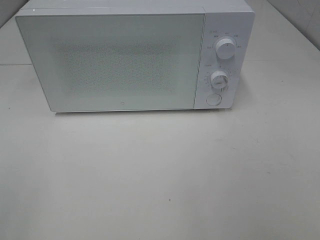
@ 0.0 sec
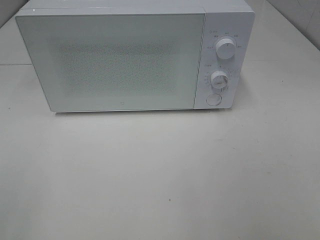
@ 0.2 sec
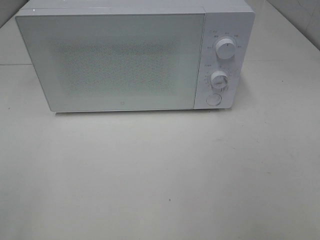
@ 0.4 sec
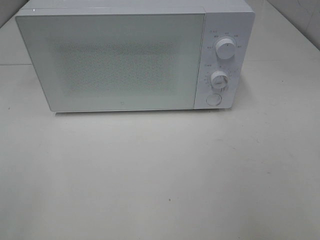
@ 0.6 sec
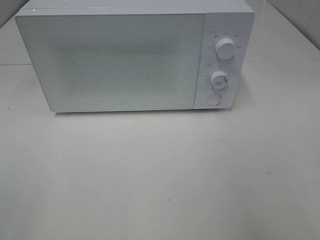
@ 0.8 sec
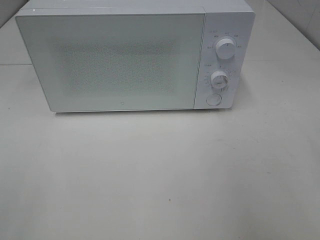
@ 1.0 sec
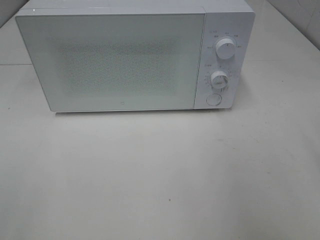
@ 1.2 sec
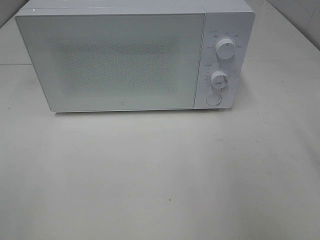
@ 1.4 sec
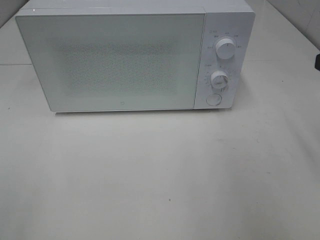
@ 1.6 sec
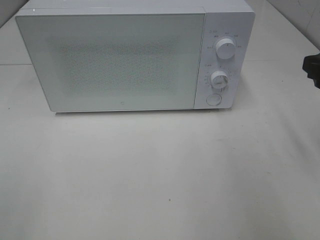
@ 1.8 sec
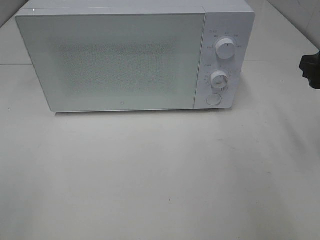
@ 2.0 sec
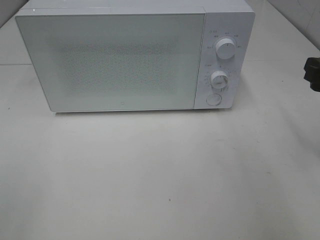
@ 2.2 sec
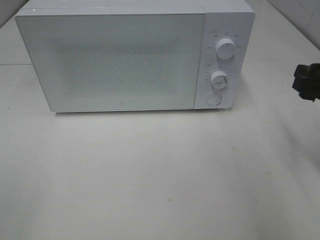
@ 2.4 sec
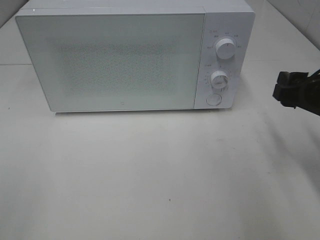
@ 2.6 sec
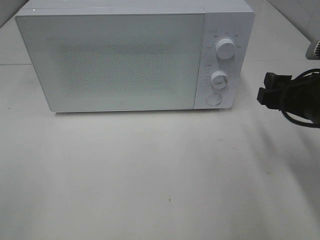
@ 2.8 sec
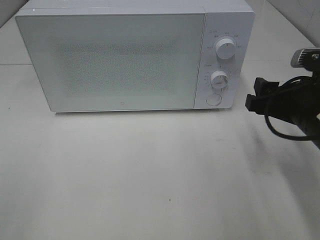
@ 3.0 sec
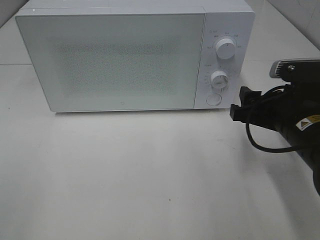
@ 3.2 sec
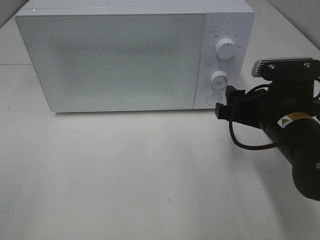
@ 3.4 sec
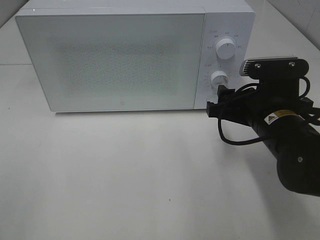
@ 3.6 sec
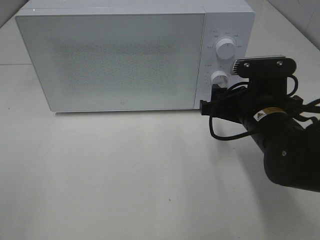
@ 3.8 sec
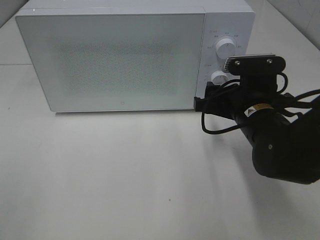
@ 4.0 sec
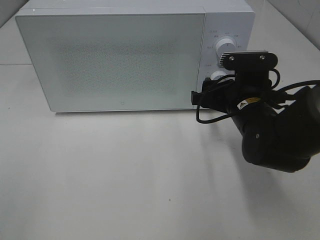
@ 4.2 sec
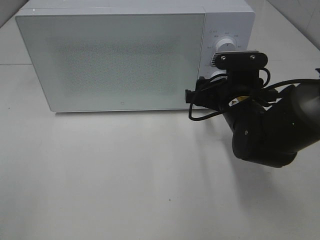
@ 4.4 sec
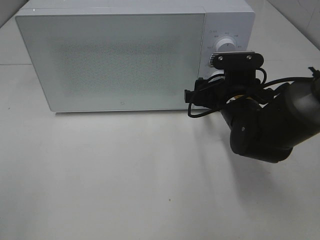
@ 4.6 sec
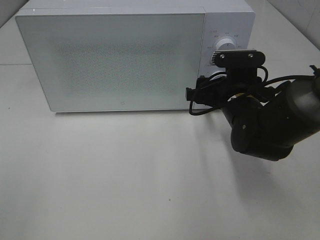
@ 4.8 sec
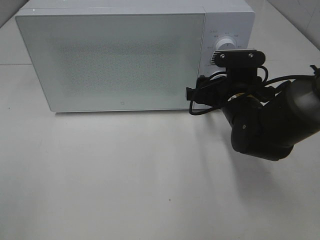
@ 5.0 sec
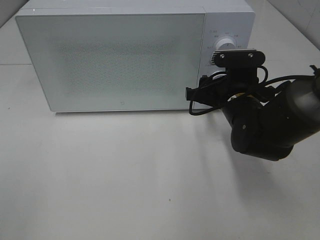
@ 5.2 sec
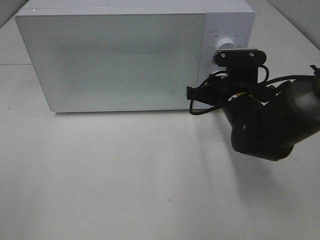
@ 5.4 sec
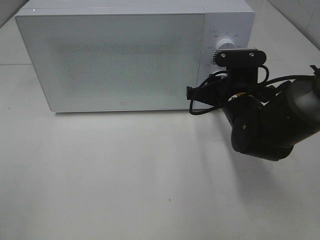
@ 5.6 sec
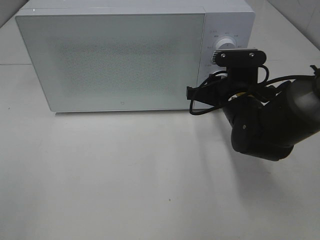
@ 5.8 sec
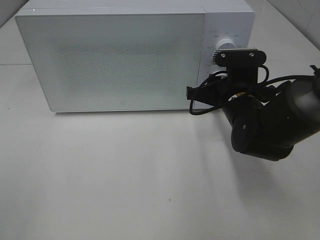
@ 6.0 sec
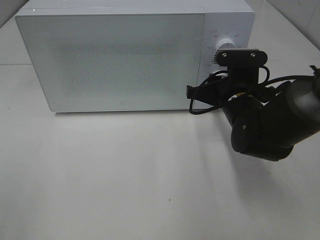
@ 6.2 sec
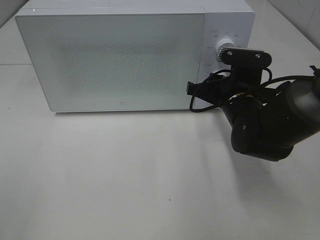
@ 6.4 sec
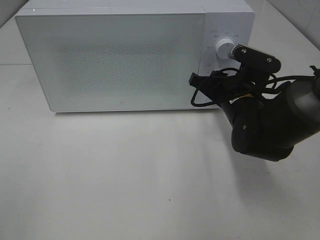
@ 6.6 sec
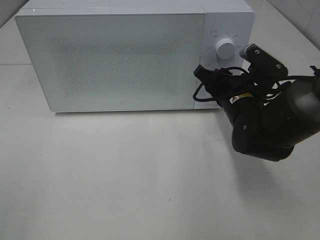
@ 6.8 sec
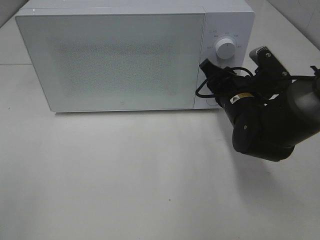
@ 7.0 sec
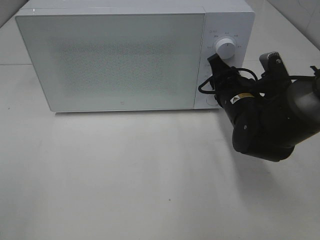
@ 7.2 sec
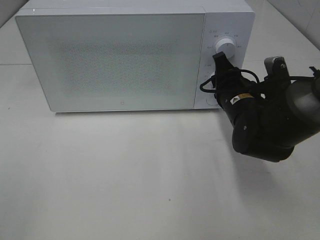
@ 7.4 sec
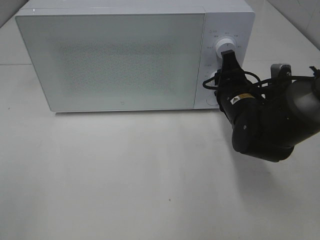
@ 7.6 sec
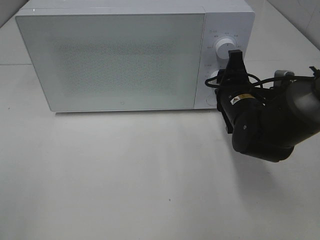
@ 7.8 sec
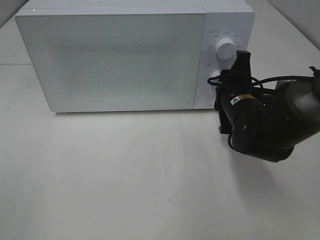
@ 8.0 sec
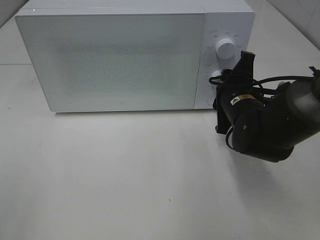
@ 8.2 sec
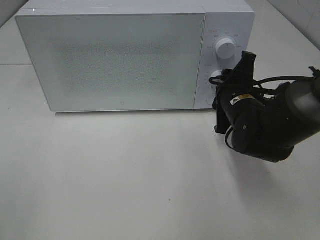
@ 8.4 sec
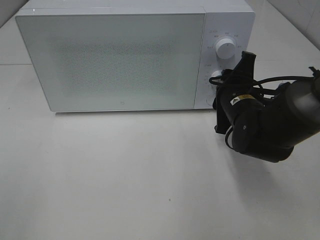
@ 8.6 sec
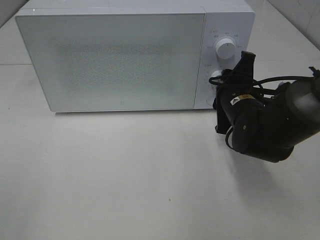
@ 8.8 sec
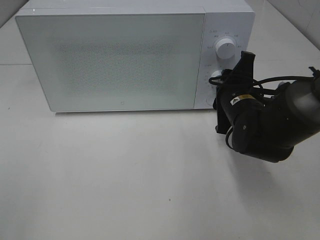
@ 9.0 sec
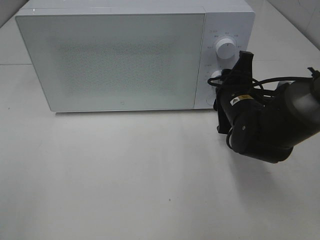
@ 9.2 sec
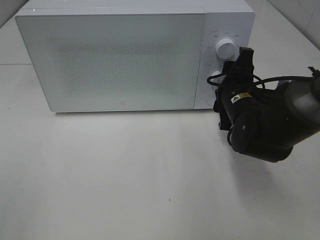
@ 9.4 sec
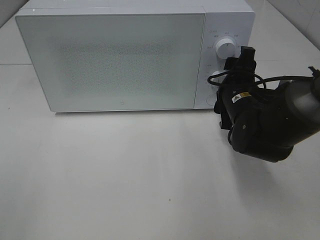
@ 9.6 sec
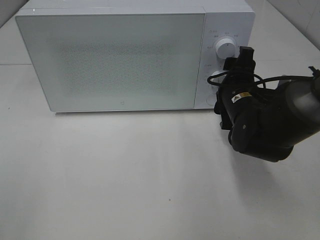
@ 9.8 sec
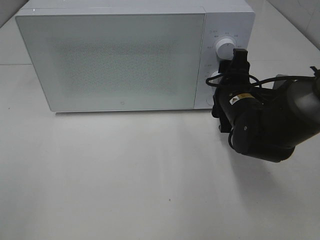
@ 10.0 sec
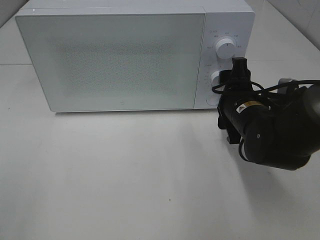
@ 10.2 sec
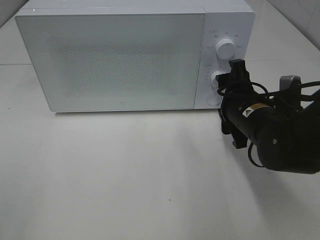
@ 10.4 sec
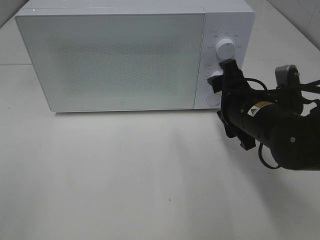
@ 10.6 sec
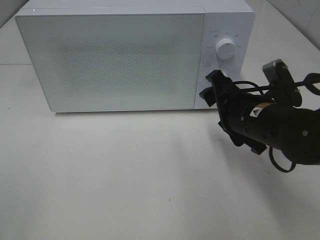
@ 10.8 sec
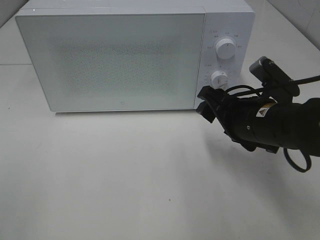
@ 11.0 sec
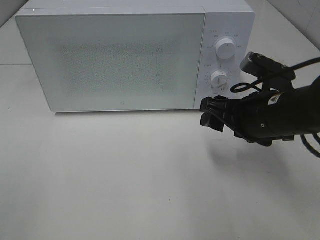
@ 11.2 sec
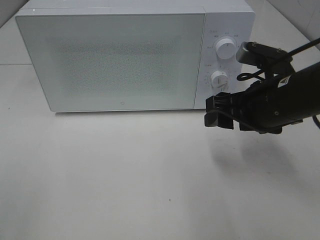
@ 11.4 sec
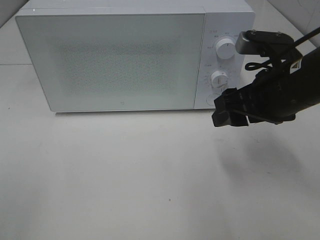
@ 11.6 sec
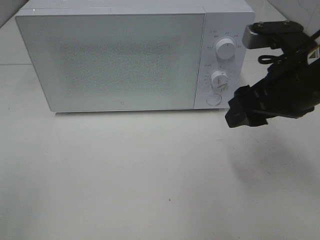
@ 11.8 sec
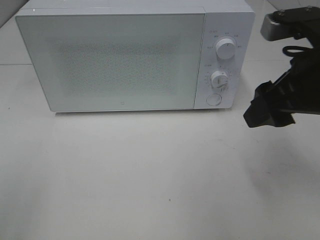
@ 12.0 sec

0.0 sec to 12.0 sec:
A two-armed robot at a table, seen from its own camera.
Task of the whole recording: Heat Sandwich.
Step, 0.0 sec to 10.0 sec: Right hand: twist timer button.
1.6 sec to 3.0 sec: The right gripper shifts some 10 cm downward and to the left.
3.0 sec to 4.4 sec: The right gripper shifts some 10 cm forward and to the left.
4.4 sec to 6.0 sec: The right gripper closes its fingers.
10.4 sec to 12.0 sec: The right gripper heads upward and backward, covering roughly 15 cm.

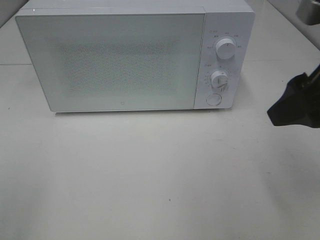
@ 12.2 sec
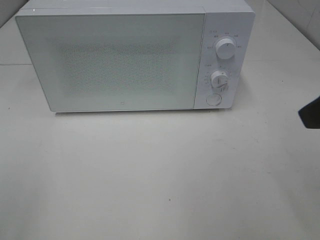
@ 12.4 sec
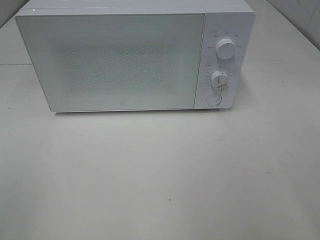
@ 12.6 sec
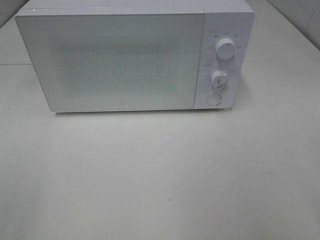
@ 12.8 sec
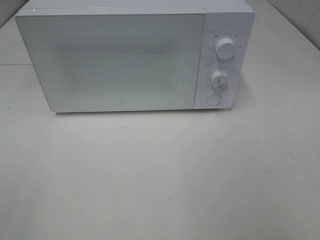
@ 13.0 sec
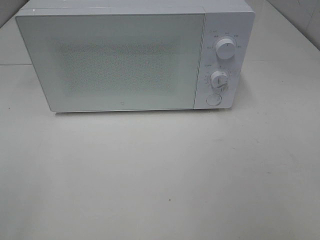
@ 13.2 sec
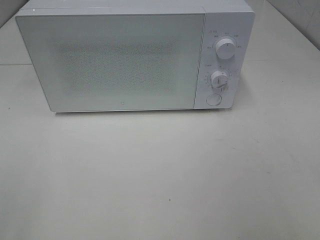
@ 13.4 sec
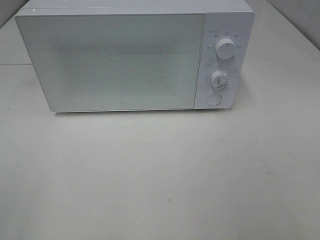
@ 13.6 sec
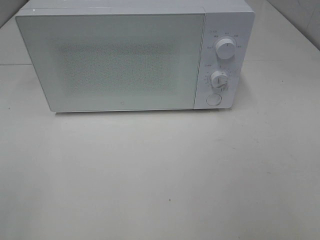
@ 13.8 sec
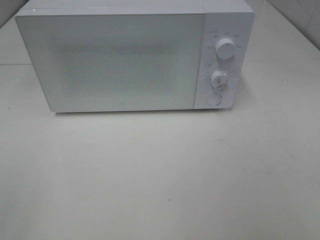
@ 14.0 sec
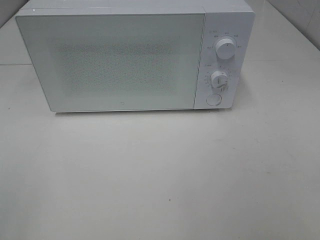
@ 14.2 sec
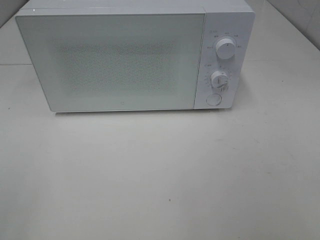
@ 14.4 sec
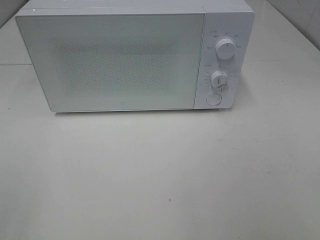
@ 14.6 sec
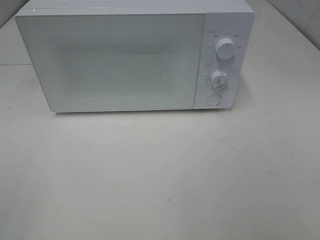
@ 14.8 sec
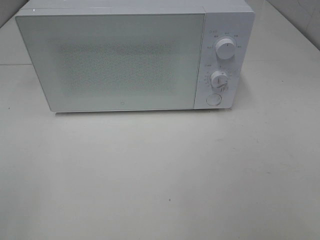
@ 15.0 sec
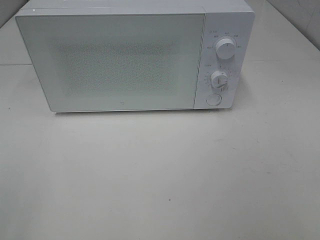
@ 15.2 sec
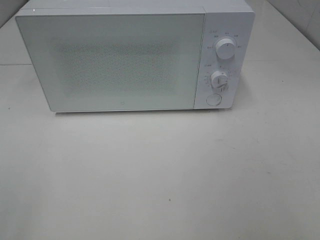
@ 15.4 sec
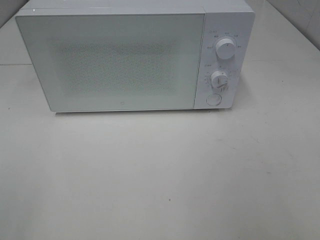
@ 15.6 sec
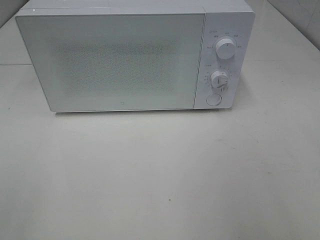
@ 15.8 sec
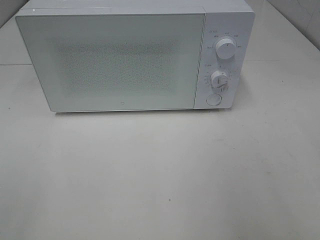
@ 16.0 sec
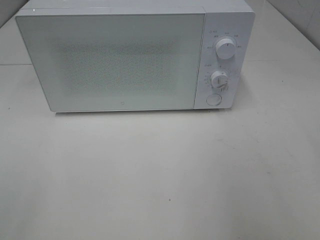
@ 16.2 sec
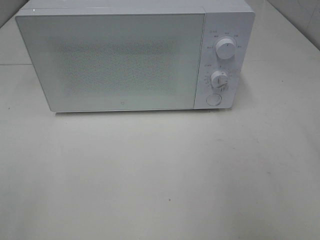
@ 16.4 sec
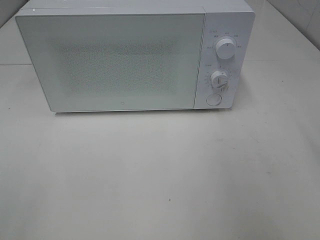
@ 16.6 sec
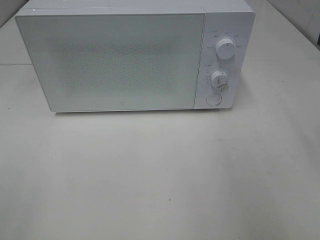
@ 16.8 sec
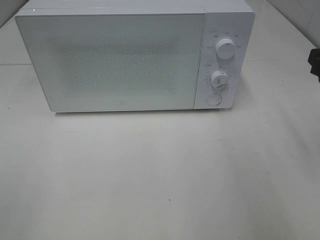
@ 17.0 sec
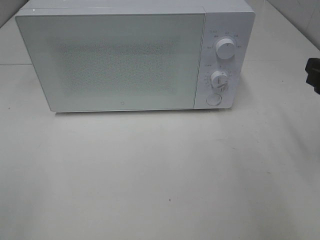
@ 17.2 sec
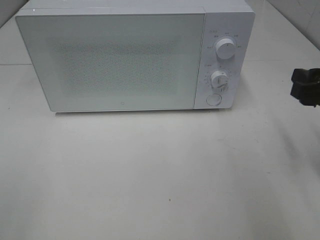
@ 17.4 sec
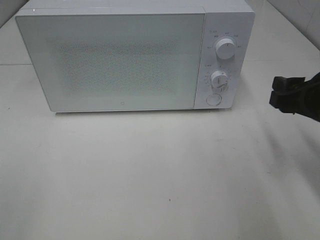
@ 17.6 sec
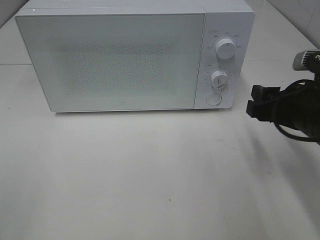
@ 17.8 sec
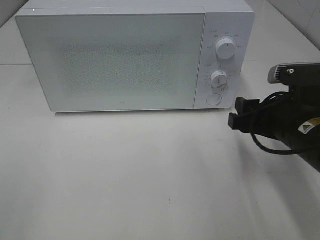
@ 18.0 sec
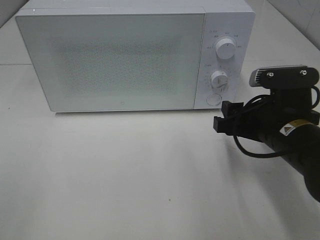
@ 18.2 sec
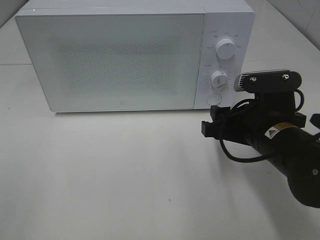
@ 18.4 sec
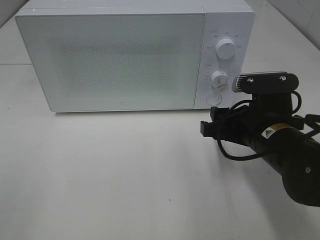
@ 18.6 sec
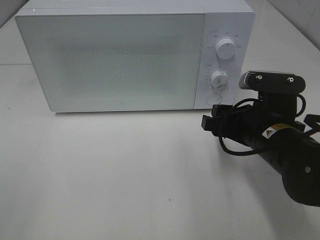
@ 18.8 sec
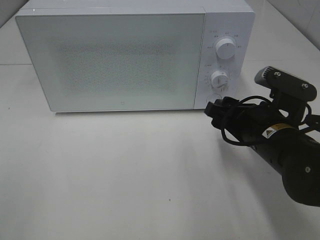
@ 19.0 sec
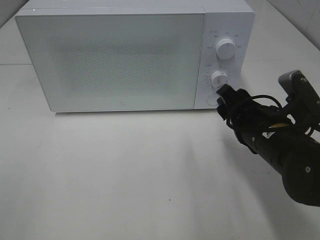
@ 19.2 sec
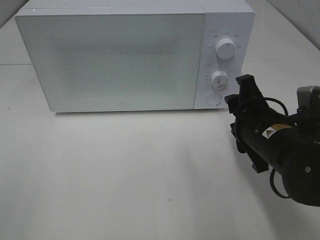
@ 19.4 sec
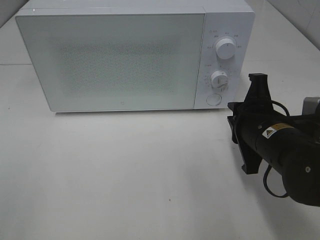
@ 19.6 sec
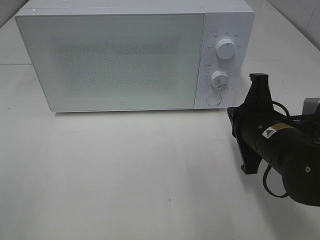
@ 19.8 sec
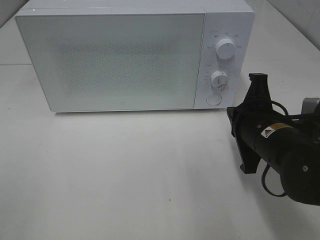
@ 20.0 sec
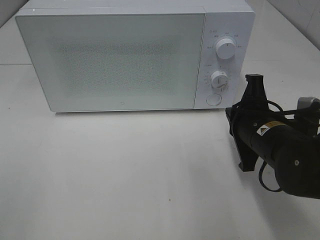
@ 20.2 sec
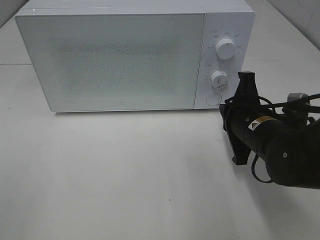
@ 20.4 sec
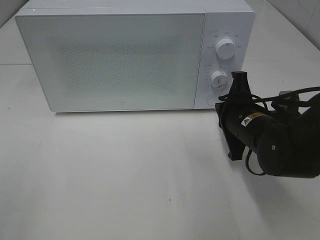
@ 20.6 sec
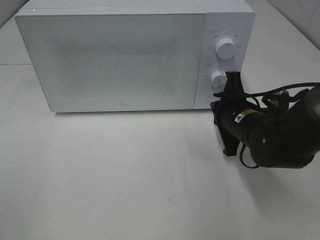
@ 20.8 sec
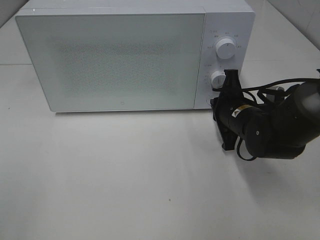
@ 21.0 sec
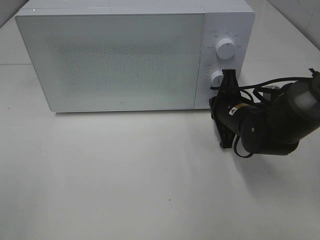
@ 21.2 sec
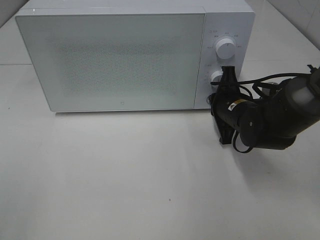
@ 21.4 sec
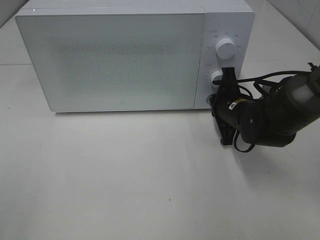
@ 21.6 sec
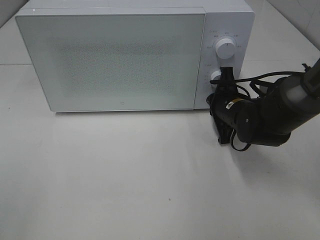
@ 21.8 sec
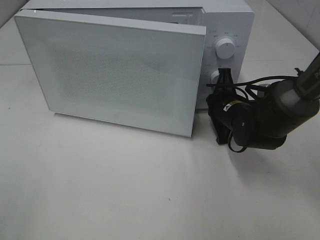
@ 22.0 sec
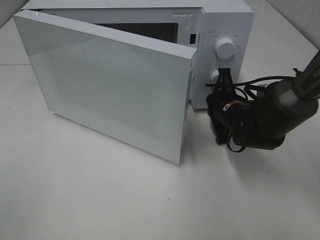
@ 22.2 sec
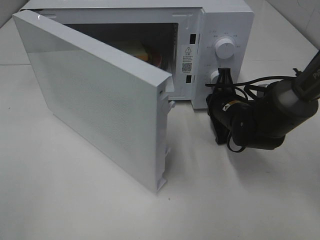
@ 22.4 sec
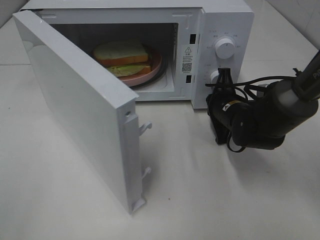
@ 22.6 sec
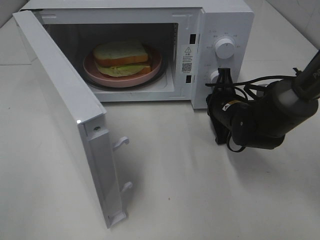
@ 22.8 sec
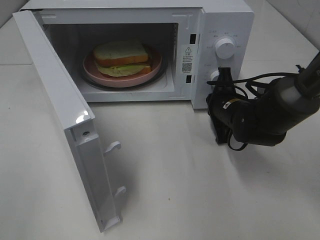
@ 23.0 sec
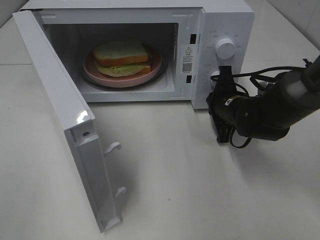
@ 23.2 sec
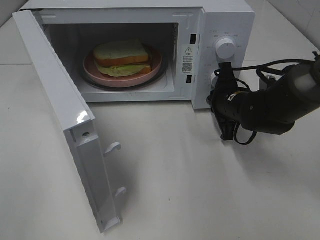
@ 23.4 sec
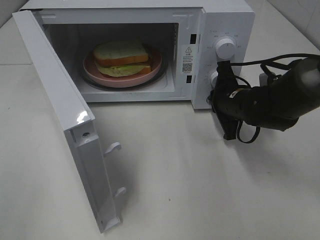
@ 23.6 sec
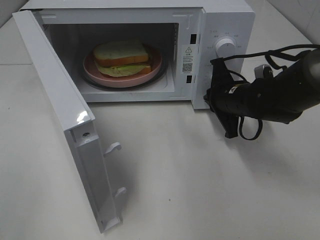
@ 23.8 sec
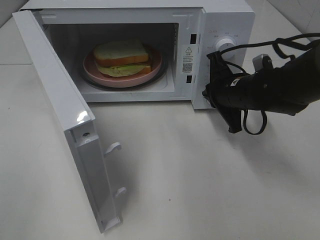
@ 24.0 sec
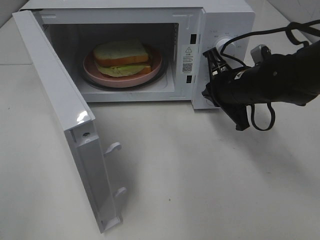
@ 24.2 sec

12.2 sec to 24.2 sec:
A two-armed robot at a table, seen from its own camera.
Task of the whole recording: Heat Sandwich.
Step, 12.2 sec to 23.8 sec: Right hand: press the switch.
12.2 sec to 13.8 sec: The right gripper travels backward and to the right by about 20 cm.
16.6 sec to 18.2 sec: The right gripper is displaced downward and to the left by roughly 20 cm.
18.2 sec to 19.8 sec: The right gripper closes up.
19.8 sec to 21.2 sec: The right gripper moves forward and downward, about 10 cm.
22.6 sec to 24.2 sec: The right gripper shifts approximately 5 cm upward.
